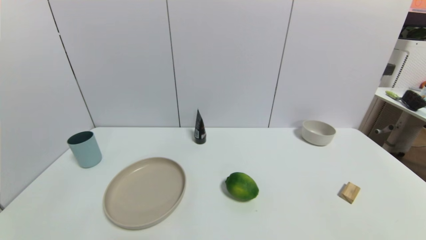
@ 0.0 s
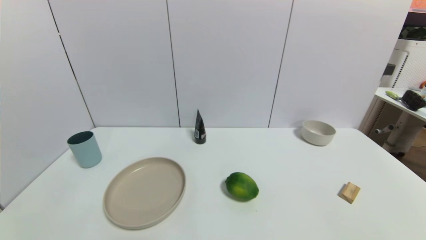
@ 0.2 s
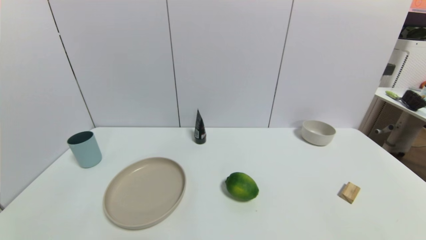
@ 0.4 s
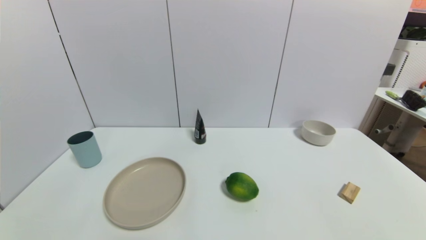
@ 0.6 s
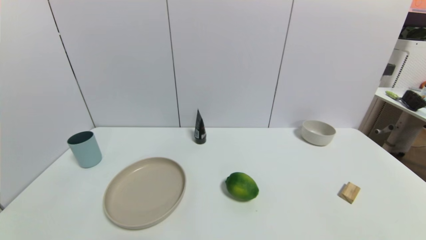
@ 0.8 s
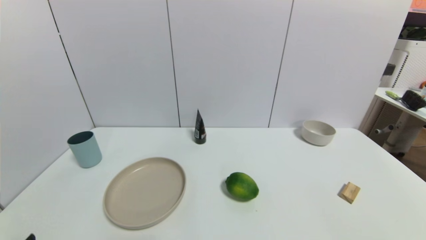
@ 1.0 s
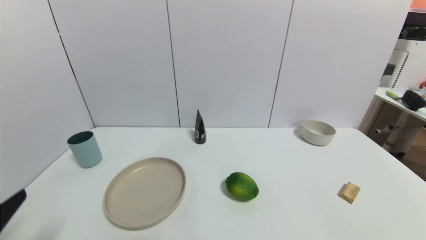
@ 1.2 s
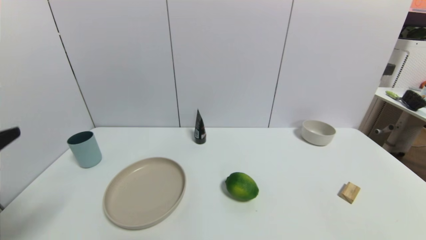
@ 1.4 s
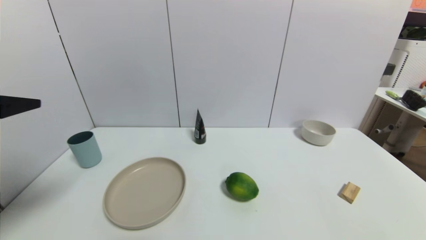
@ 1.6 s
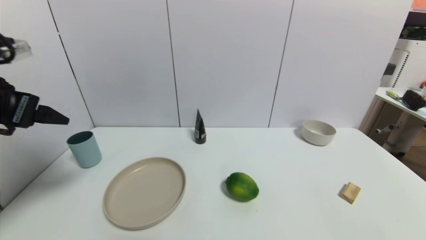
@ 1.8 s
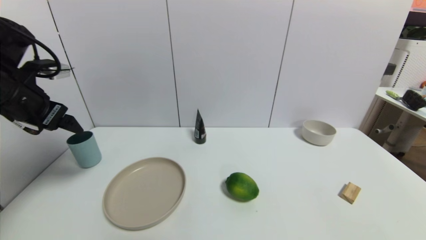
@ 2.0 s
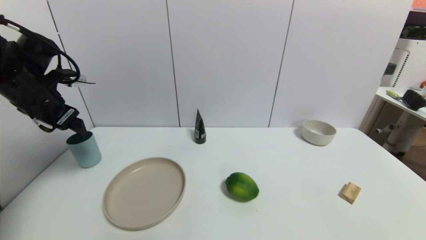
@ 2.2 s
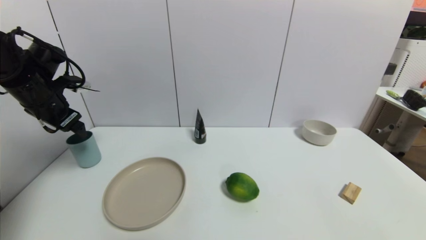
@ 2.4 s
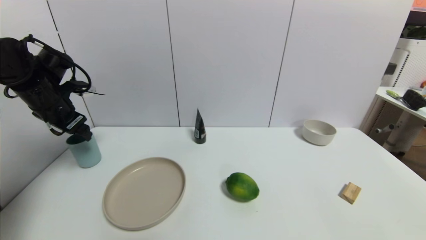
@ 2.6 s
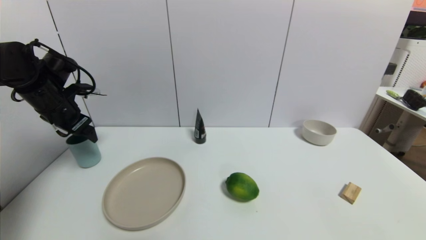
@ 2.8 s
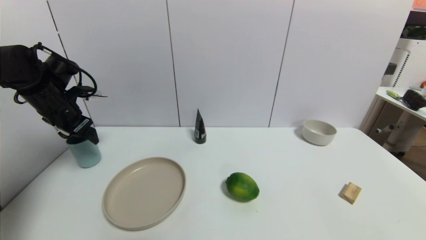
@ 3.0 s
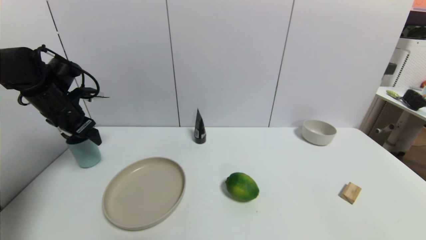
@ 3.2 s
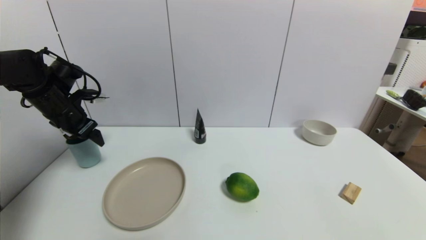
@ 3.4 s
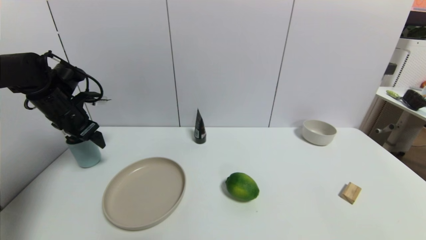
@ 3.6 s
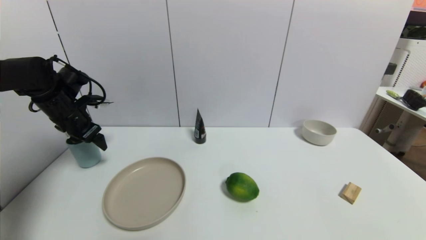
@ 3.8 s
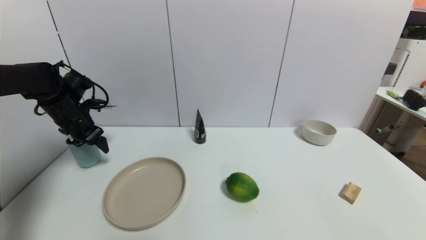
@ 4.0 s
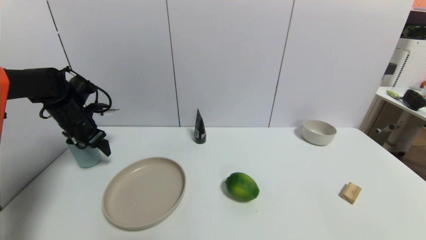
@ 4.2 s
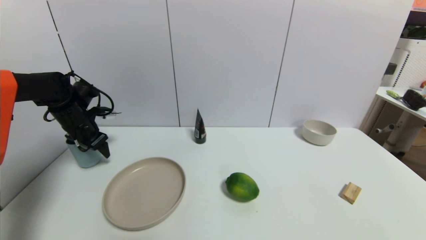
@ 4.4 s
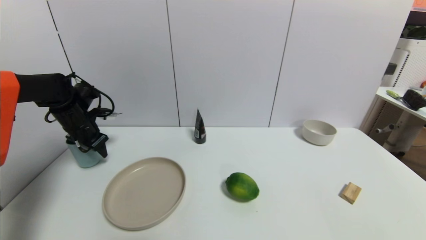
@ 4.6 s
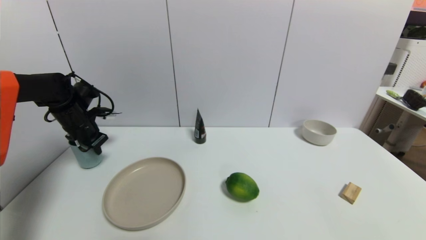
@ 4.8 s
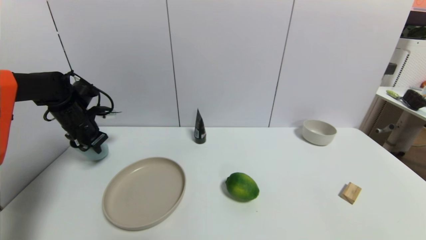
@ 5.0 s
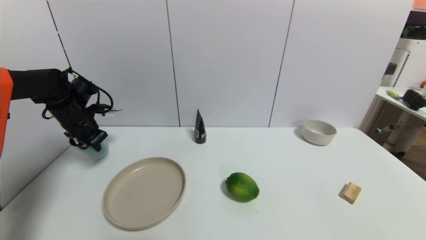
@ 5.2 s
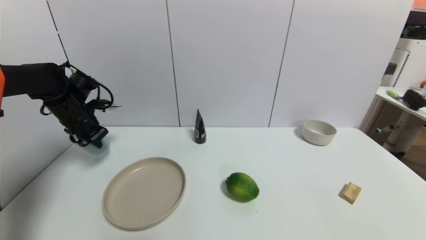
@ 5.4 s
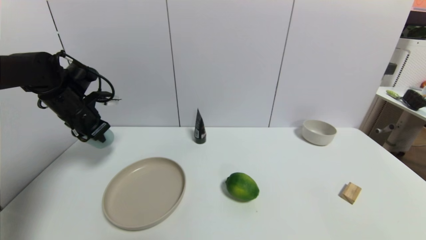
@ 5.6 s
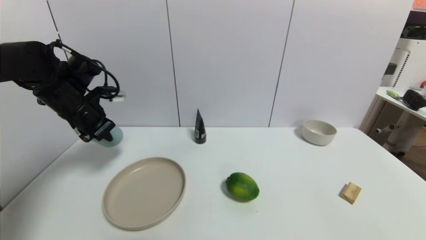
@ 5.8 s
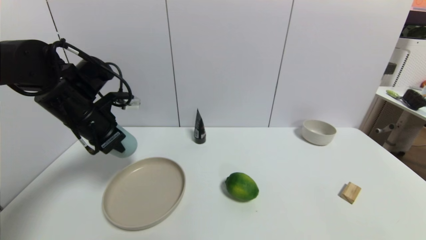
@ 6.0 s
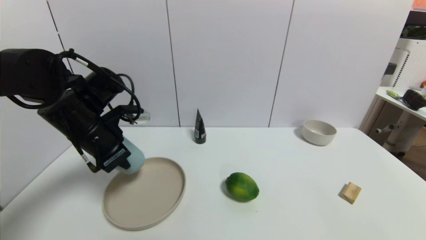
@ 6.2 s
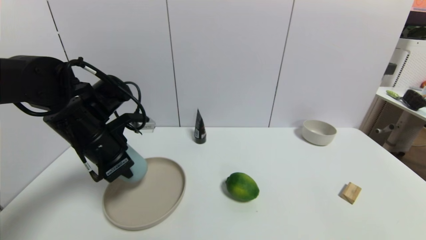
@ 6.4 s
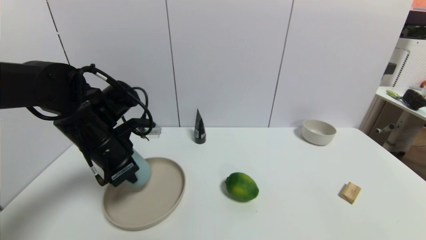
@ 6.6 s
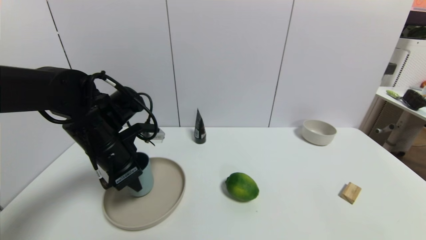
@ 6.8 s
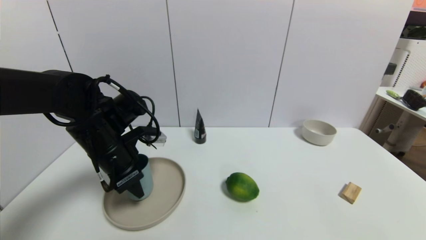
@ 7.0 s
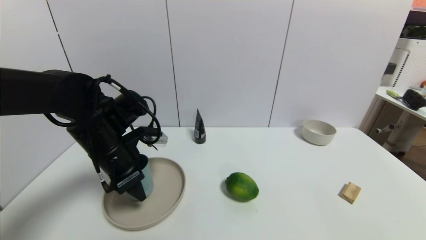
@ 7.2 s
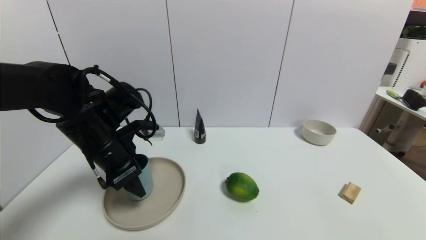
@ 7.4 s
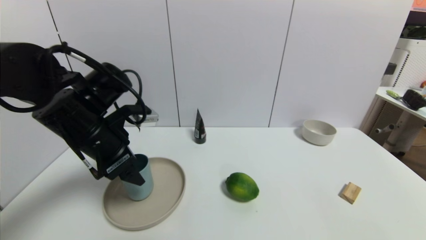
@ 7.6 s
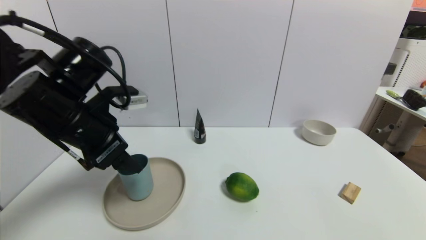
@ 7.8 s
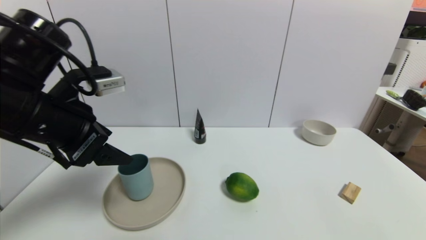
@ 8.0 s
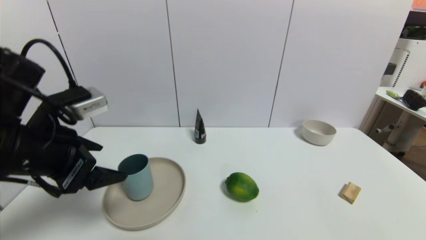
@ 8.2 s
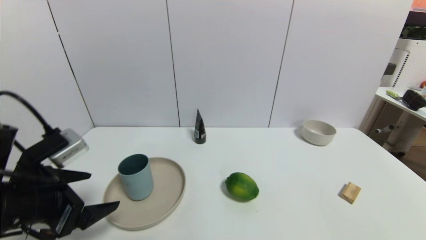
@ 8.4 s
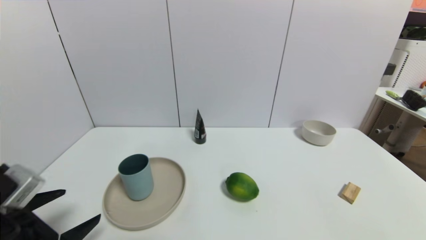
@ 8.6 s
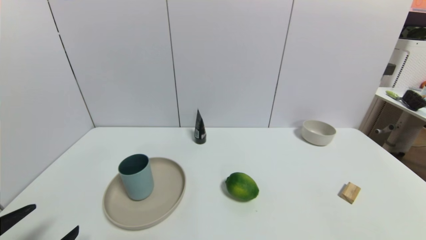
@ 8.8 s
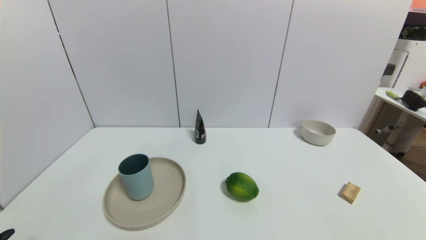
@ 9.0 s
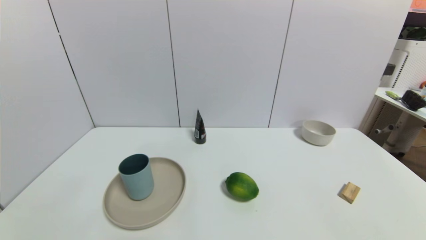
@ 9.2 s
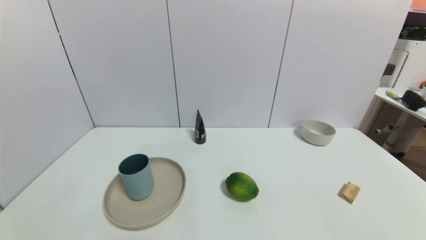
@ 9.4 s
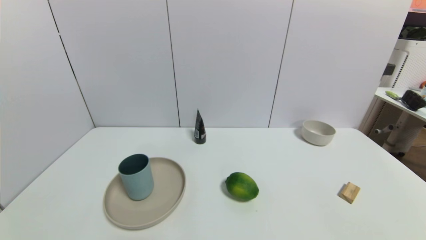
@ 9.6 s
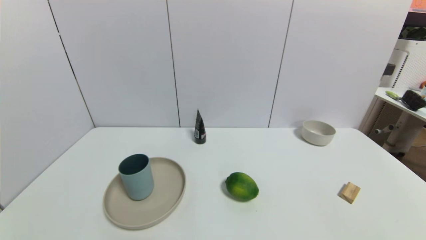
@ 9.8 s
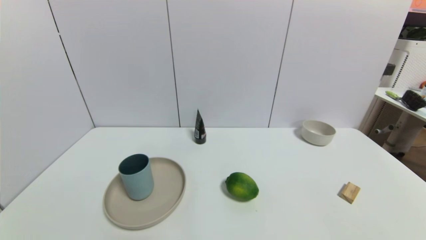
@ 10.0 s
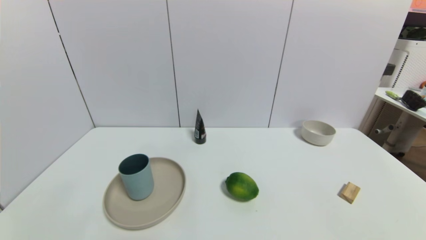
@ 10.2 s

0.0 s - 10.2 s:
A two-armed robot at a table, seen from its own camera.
Task of the whole recording: use a gripper to pick the target object and place on the brown plate.
Step, 0.0 s - 4.8 s: Grasp the blue cup with the left gripper.
Step, 5.0 s - 7.6 s: Place the blue cup on the brown plate with the left gripper.
0.0 s - 1.4 s: The left gripper travels upward and forward by roughly 25 cm.
1.4 s - 3.0 s: The left gripper travels forward by some 30 cm.
3.0 s - 4.4 s: The left gripper shifts approximately 5 cm downward.
4.4 s - 5.8 s: The left gripper goes some 10 cm upward, to the right and backward, and closes.
5.8 s - 7.2 s: The left gripper is displaced to the right and backward by approximately 10 cm, and opens its fingers.
7.2 s - 8.8 s: The left gripper travels backward and to the left by about 25 cm.
8.8 s - 10.2 s: The left gripper goes about 10 cm backward and downward.
